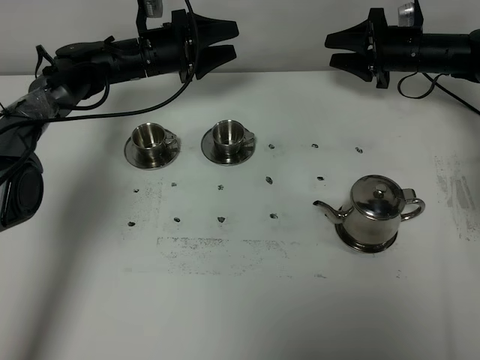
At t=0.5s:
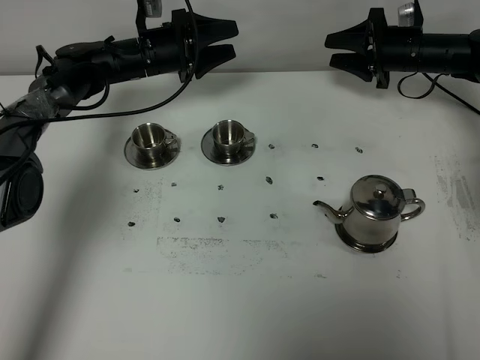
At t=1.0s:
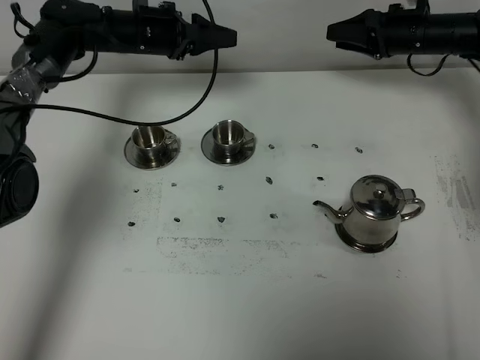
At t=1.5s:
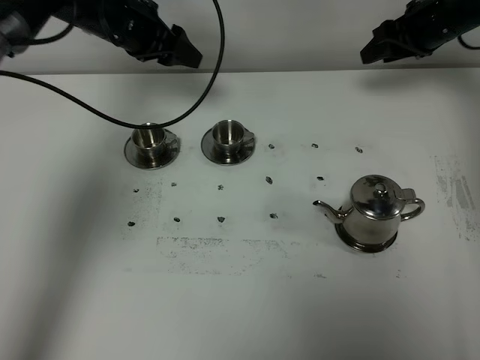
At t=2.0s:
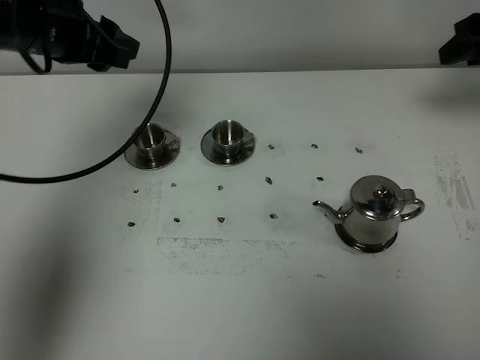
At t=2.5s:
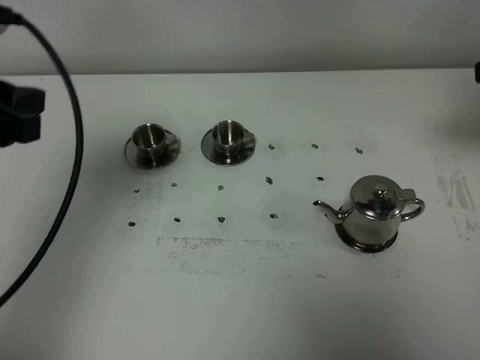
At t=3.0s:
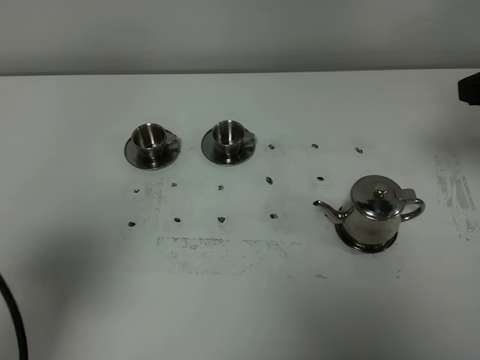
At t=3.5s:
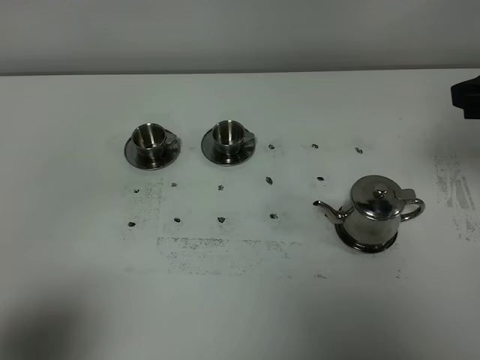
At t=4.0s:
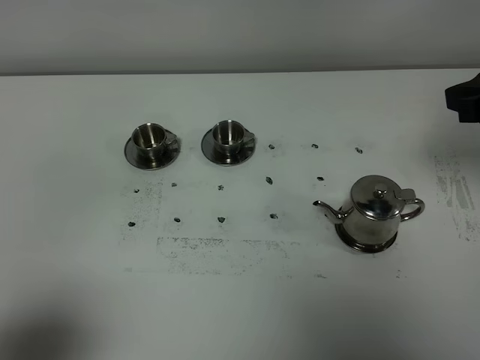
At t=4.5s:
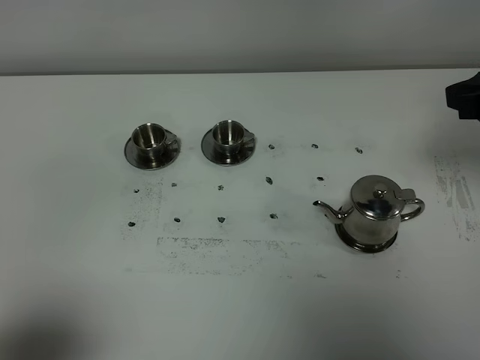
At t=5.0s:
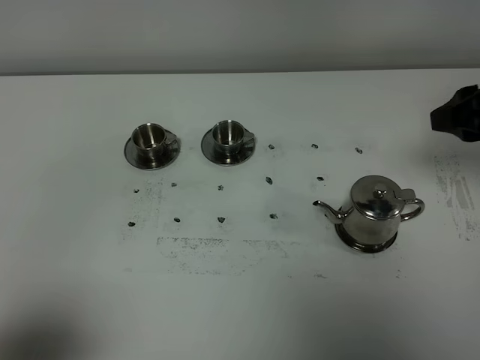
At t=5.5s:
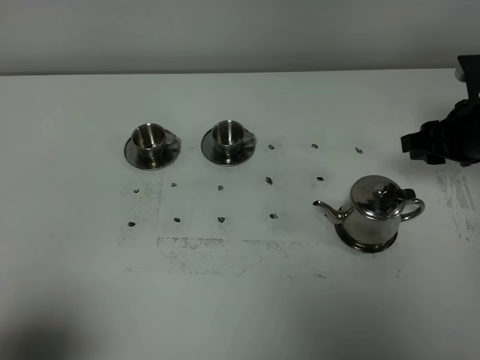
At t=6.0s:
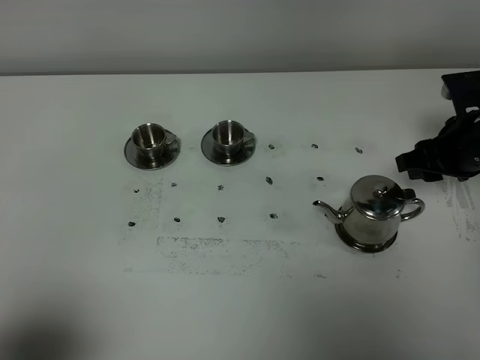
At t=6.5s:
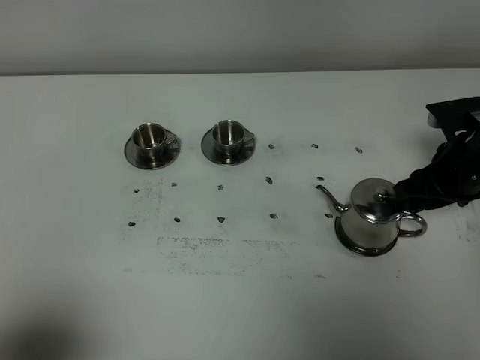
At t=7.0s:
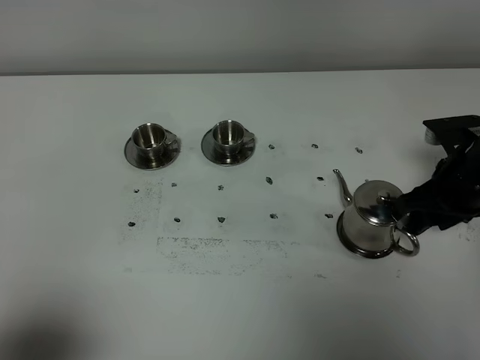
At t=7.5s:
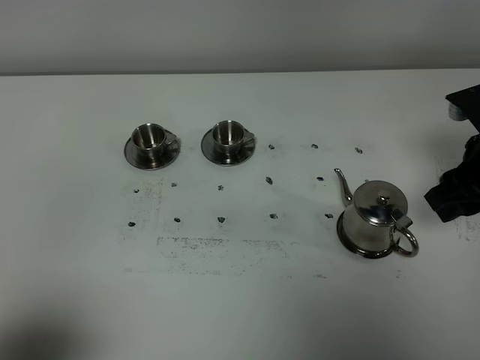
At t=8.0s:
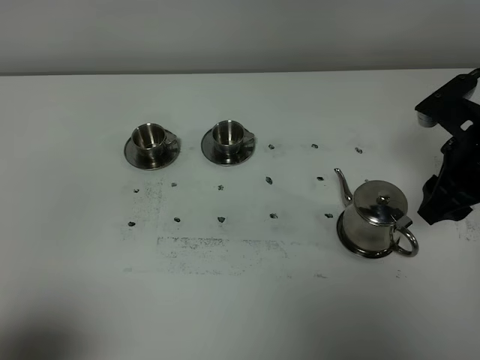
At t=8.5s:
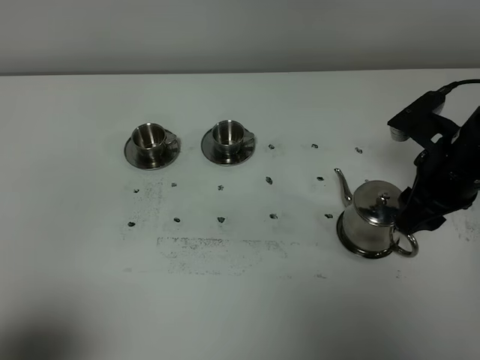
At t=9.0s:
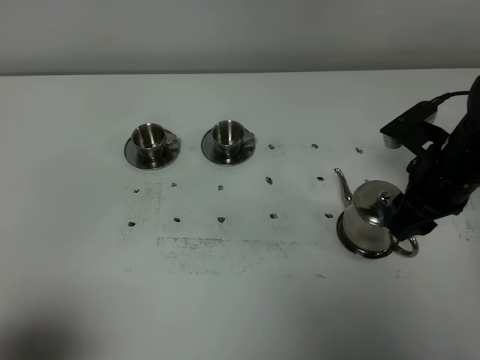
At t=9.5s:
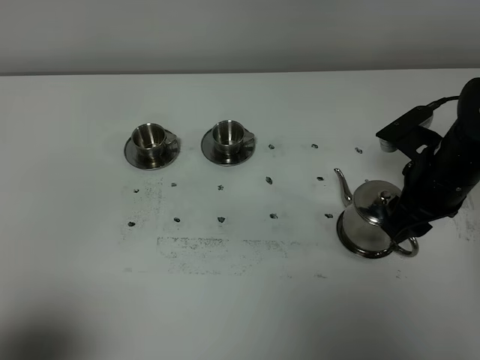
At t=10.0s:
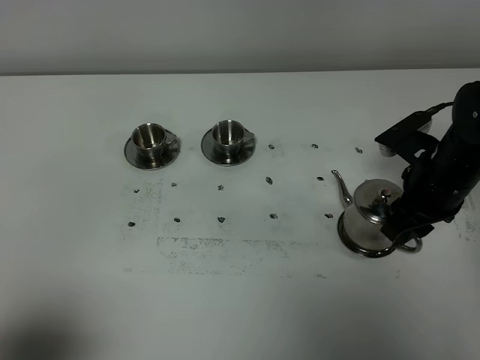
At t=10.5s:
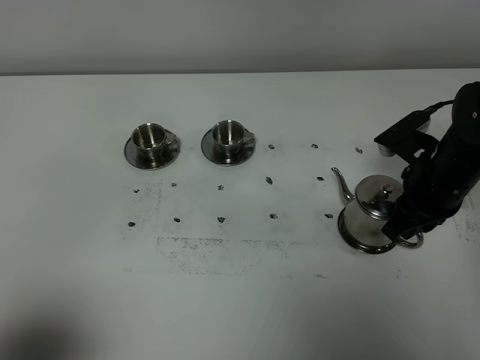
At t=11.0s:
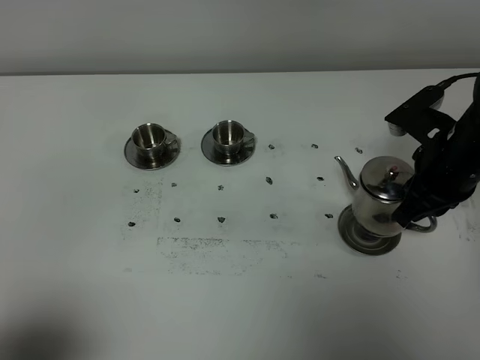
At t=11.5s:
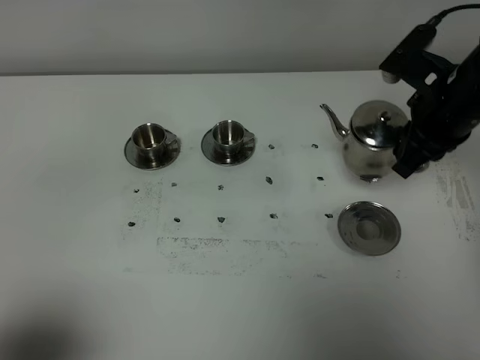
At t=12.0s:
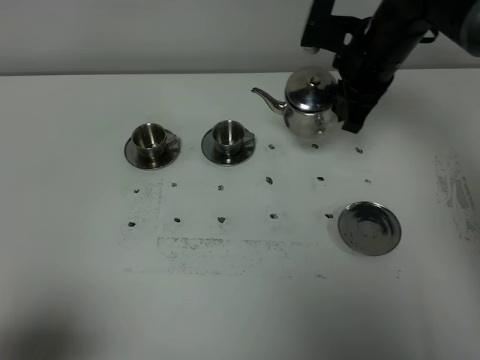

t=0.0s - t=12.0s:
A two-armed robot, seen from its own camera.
Task of the whole recording: grasp the stainless steel teapot and pour the tea into the two stainless steel teacups one by one, put the stainless steel teapot back in its original place.
Step, t=0.0s - t=10.5s: Pick up the teapot with the right gripper.
t=0.0s - t=2.0s: The right gripper moves upward, backward and to the right, about 25 cm, while the left gripper shifts some 25 cm upward and backward.
t=2.0s - t=4.0s: The right gripper shifts about 15 cm backward, while the left gripper shifts about 35 cm backward.
t=4.0s - t=6.0s: The right gripper is displaced downward and forward by some 20 cm.
t=6.0s - t=8.0s: The right gripper shifts roughly 5 cm backward and upward.
t=8.0s - t=10.0s: The right gripper heads downward, covering roughly 5 cm.
t=10.0s - t=12.0s: The right gripper travels forward, upward and to the left by roughly 15 cm, and closes.

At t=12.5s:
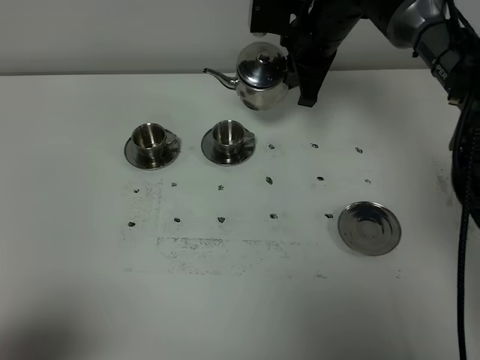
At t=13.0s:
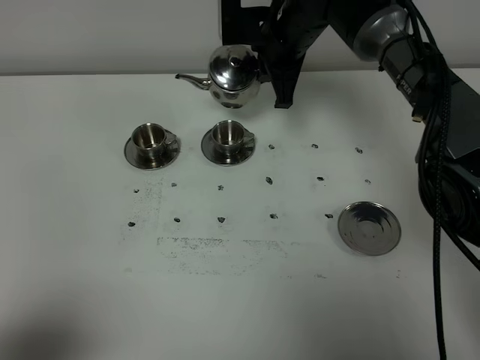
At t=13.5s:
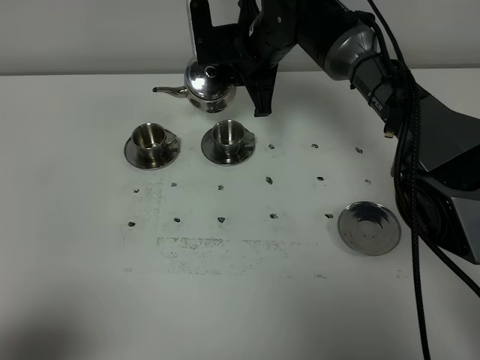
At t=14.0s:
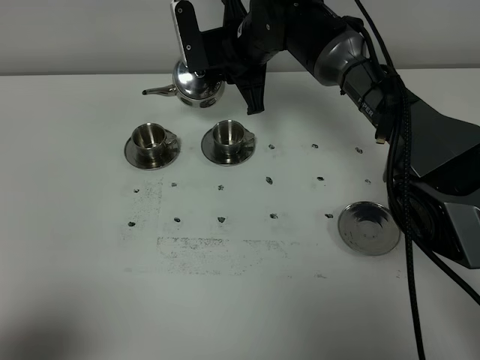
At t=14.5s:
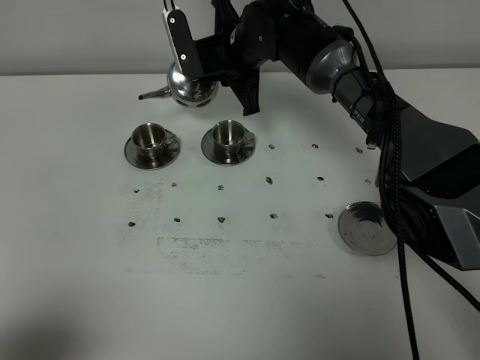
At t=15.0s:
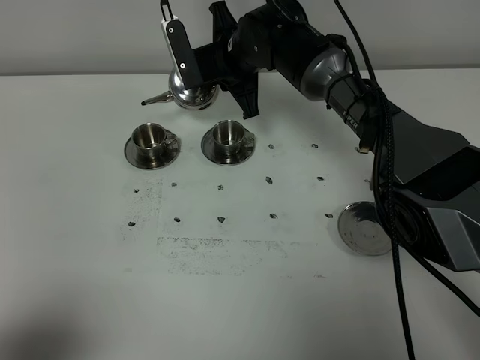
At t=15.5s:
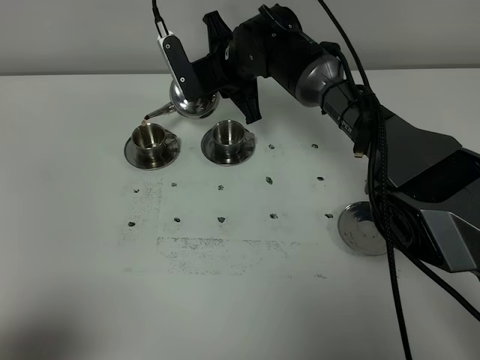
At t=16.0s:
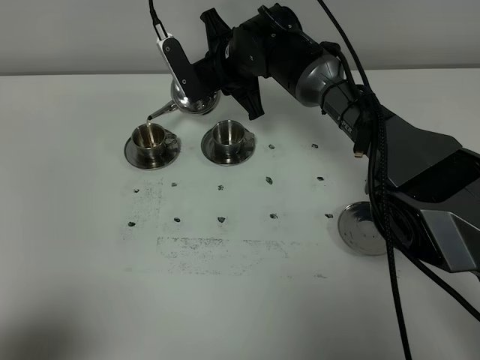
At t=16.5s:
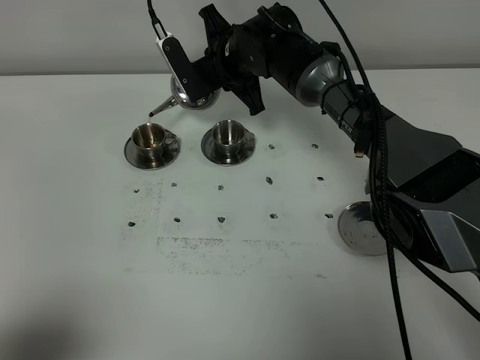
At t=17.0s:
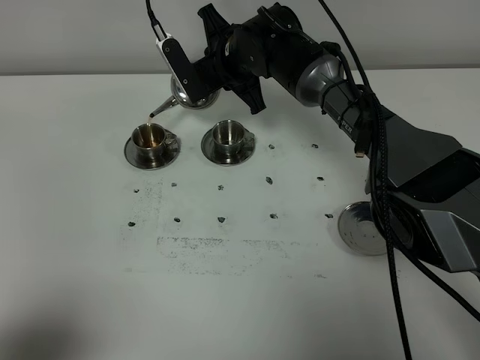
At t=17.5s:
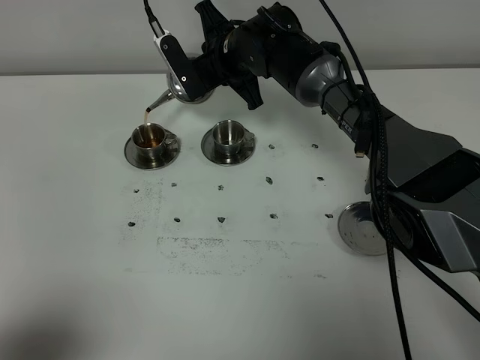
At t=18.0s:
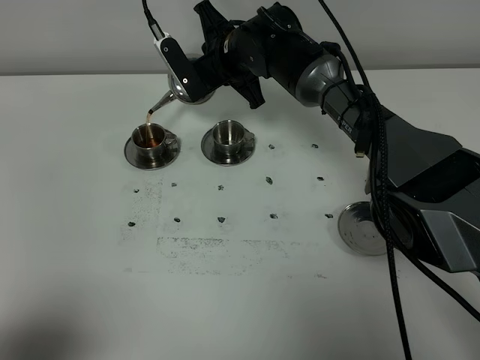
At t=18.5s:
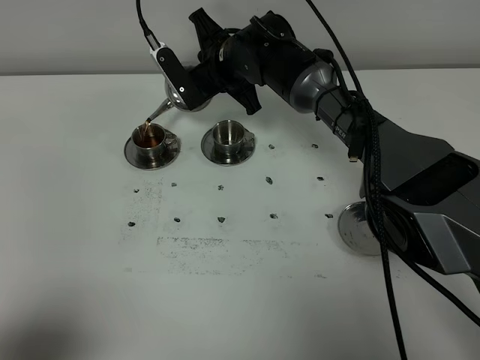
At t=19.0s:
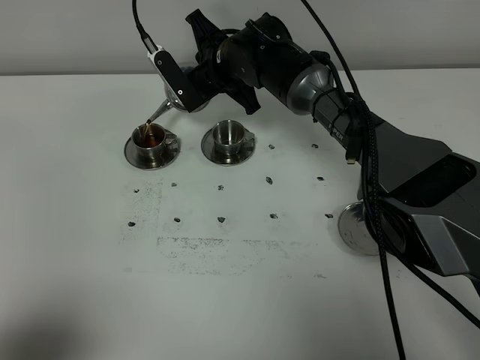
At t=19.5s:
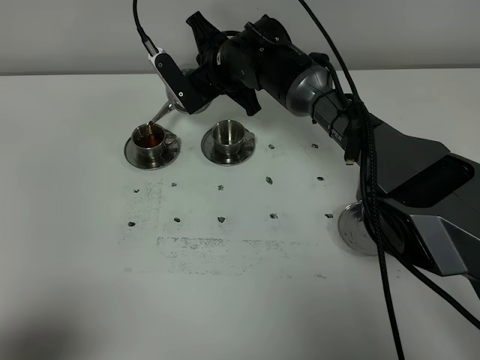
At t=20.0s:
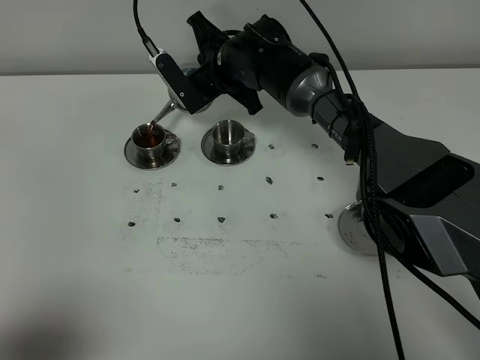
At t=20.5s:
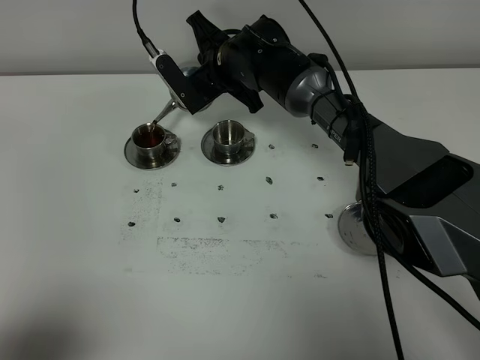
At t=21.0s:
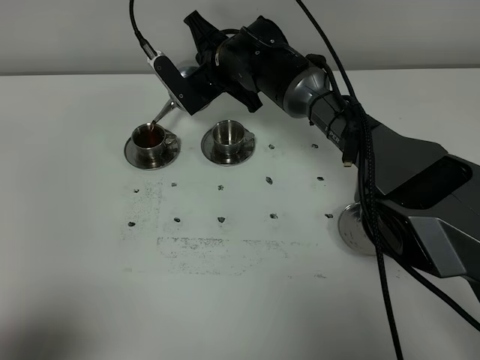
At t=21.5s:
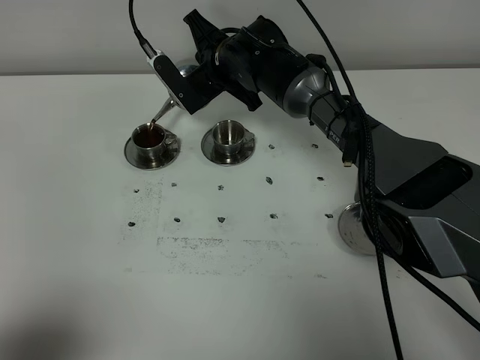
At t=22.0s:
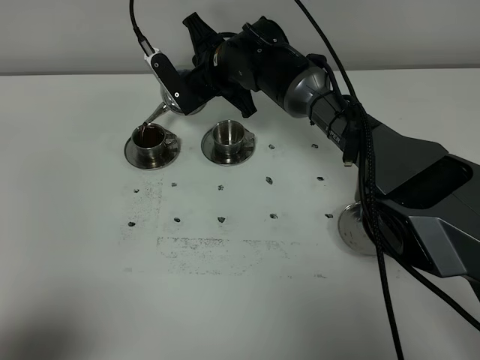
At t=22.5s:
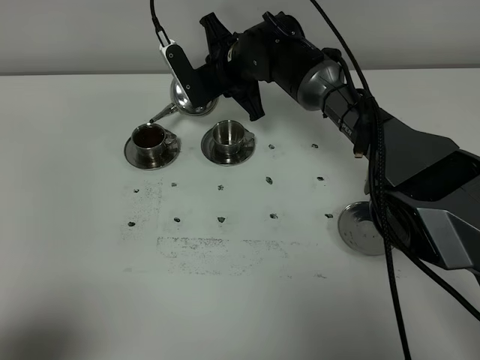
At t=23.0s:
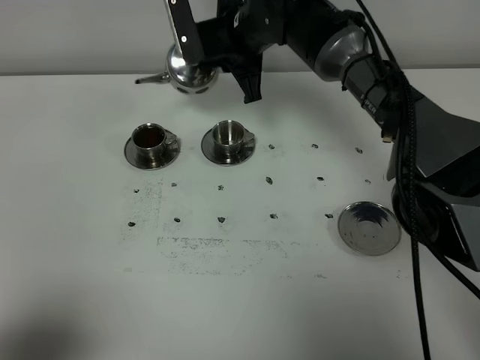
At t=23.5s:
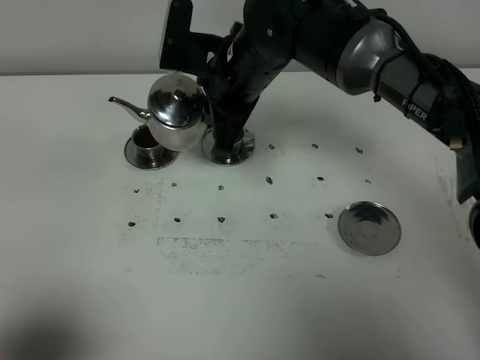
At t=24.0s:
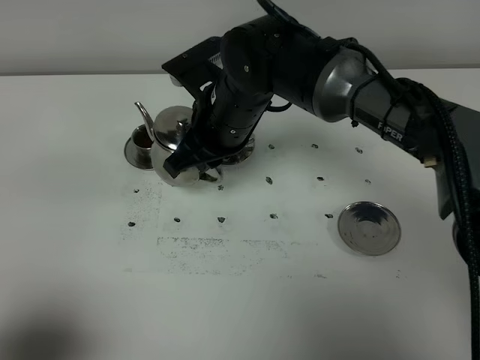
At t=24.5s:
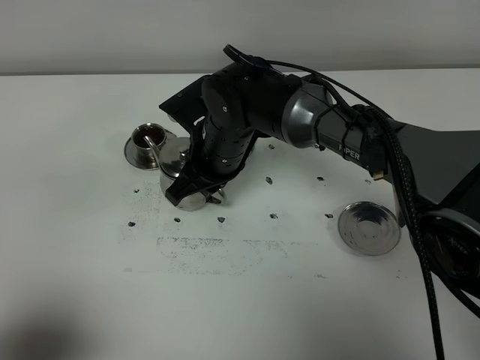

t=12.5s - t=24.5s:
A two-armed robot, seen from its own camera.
Task of the whole recording: grasp the stainless steel teapot and pour the tea into the two stainless steel teacups one by one, put the stainless steel teapot back in its original place.
t=12.5s - t=14.5s: The right gripper heads to the left, covering approximately 10 cm.
t=14.5s - t=16.5s: The grippers stay close to where they were, moving slightly.
t=16.5s - t=18.5s: There are only small adjustments of the grippers.
t=18.5s - t=20.5s: The two grippers keep their place.
t=20.5s - t=22.5s: The grippers make only small movements.
t=22.5s - t=24.5s: The right gripper travels backward by about 15 cm.

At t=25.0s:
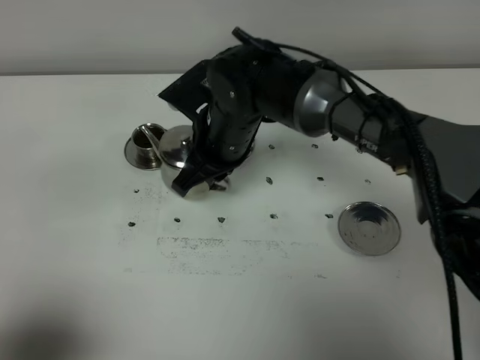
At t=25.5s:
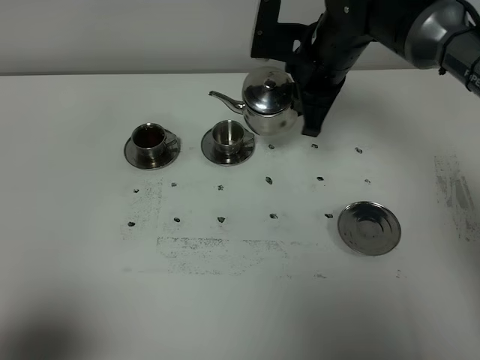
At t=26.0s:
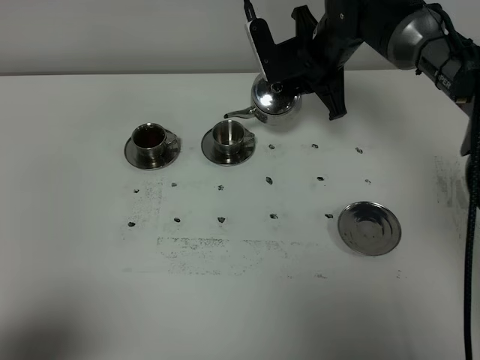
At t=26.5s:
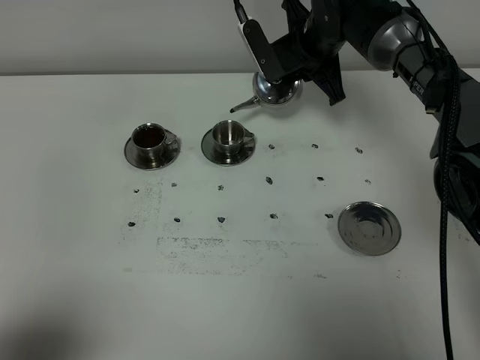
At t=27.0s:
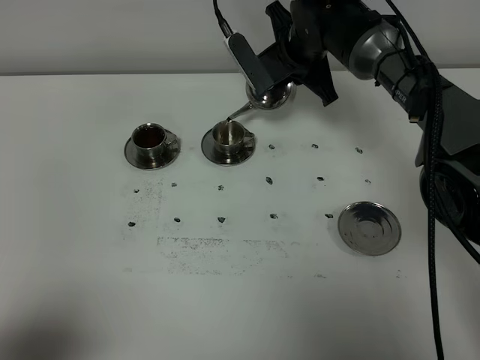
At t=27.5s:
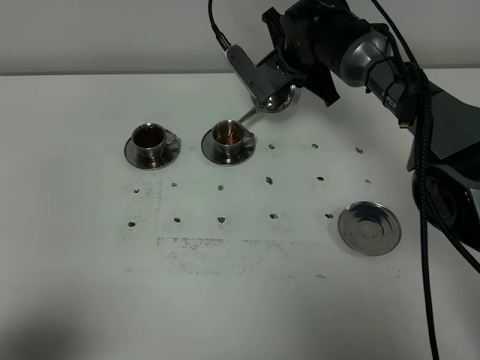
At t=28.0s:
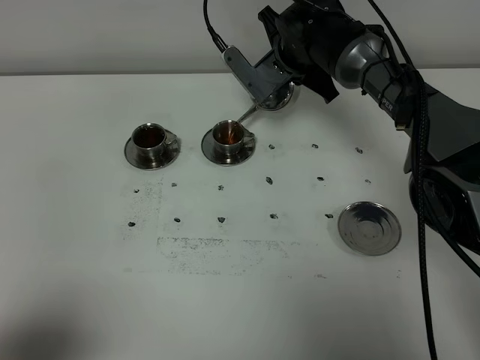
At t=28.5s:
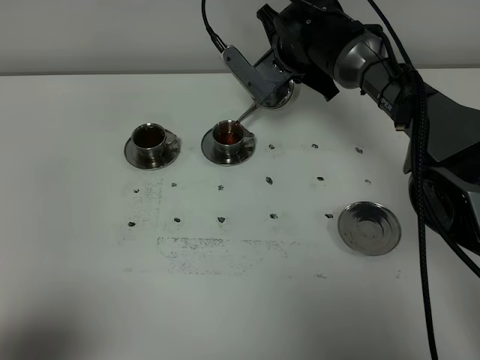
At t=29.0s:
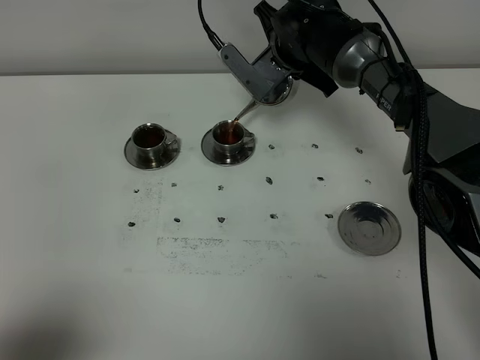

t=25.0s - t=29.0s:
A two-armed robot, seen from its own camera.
Task of the whole recording: grasp the stainless steel teapot and pour the tea into the two stainless steel teacups one by one, put the stainless steel teapot back in its original place.
t=25.0s - t=27.0s: The right gripper shifts some 15 cm forward and to the right.
t=27.0s - t=29.0s: There are only small adjustments of the grippers.
